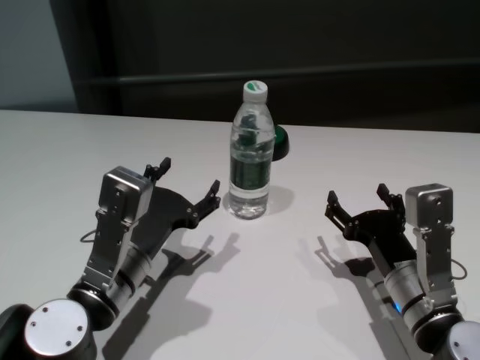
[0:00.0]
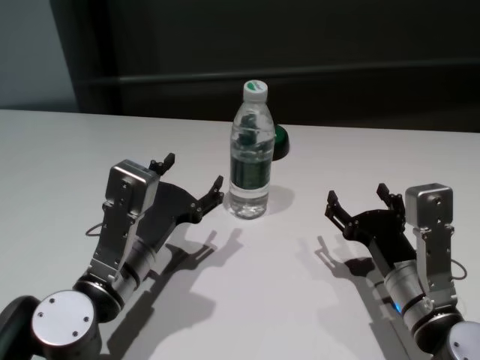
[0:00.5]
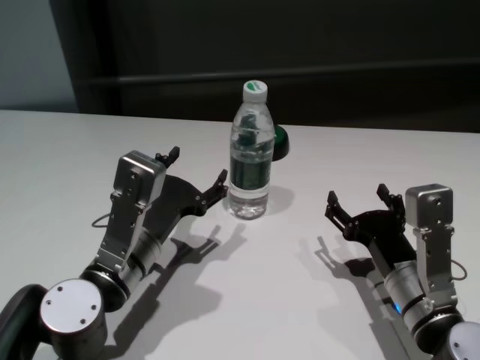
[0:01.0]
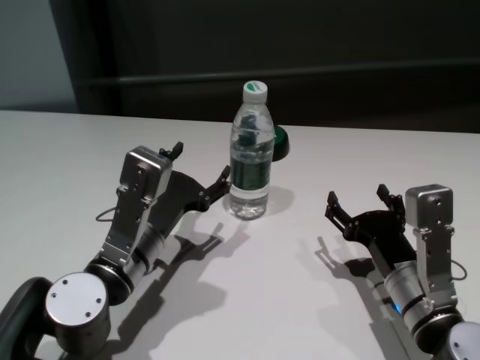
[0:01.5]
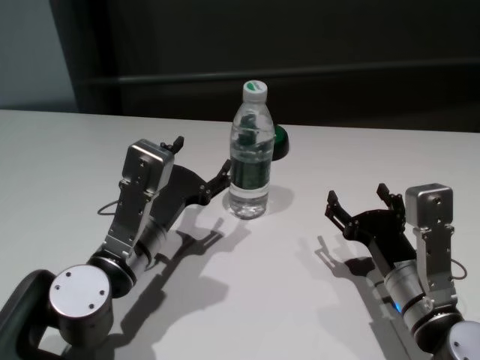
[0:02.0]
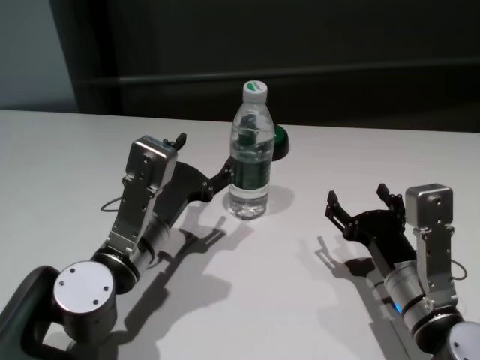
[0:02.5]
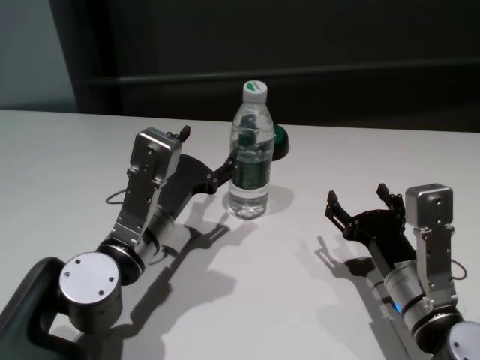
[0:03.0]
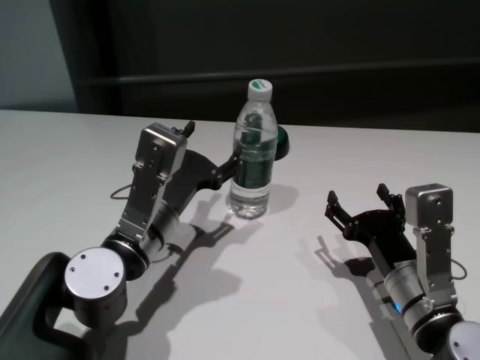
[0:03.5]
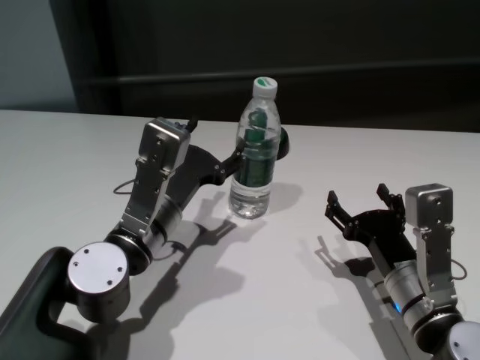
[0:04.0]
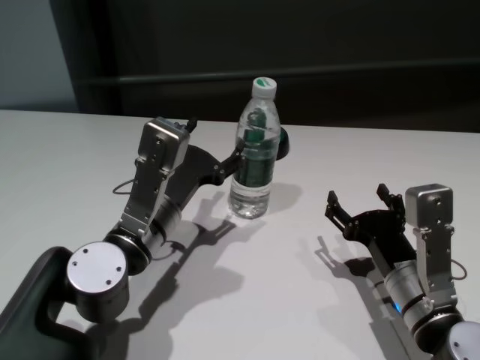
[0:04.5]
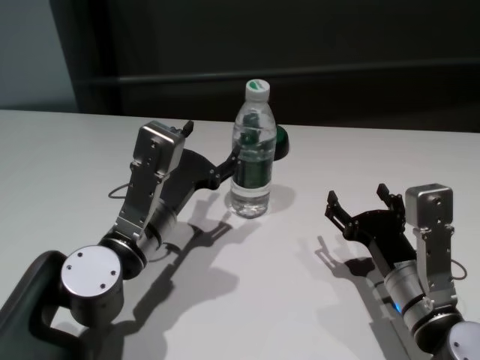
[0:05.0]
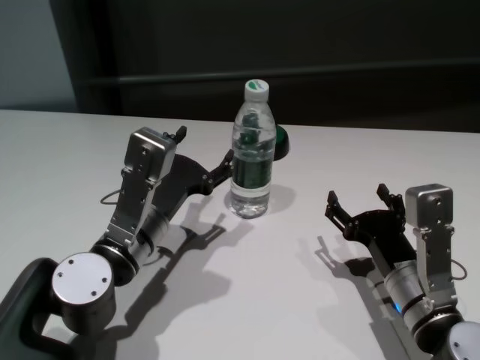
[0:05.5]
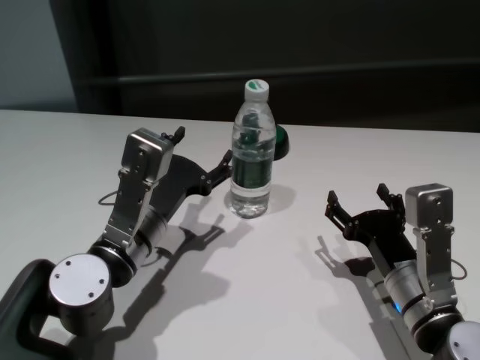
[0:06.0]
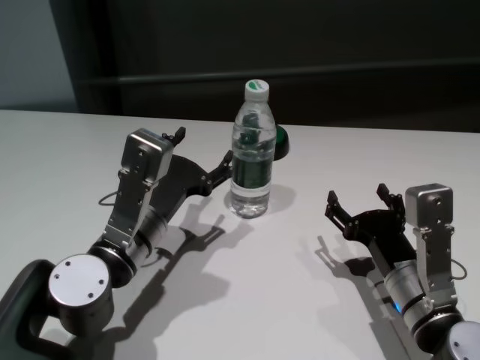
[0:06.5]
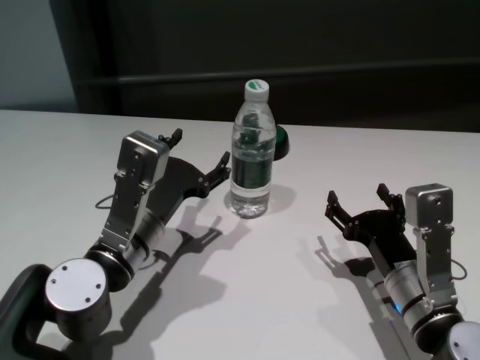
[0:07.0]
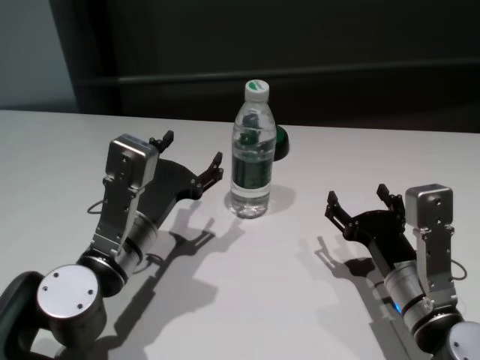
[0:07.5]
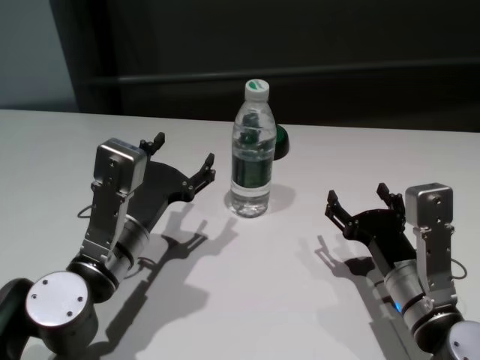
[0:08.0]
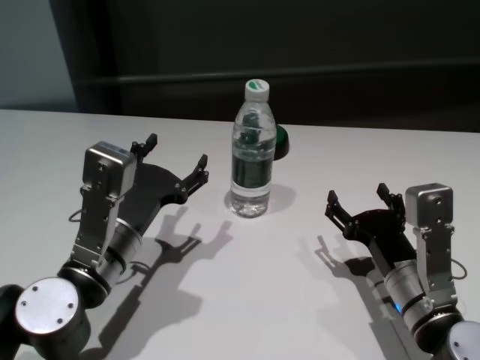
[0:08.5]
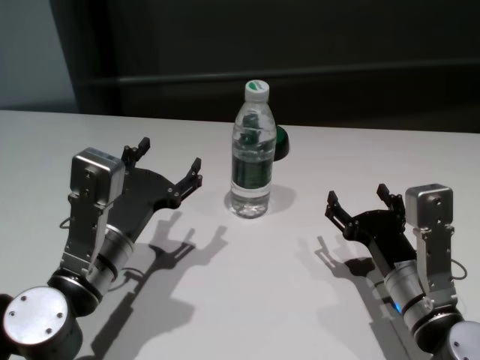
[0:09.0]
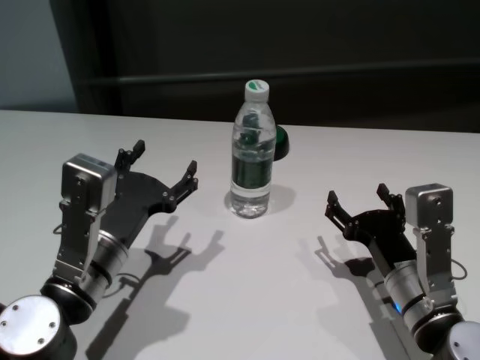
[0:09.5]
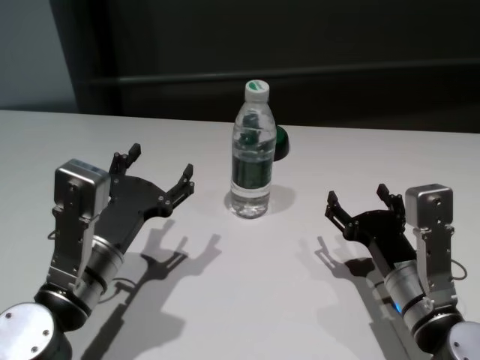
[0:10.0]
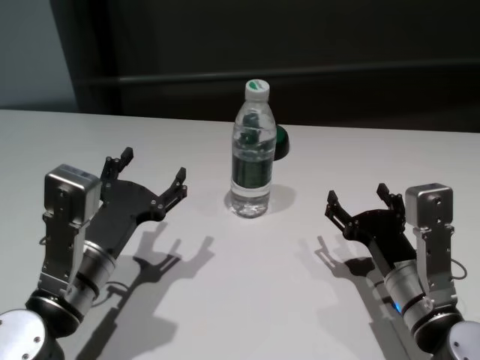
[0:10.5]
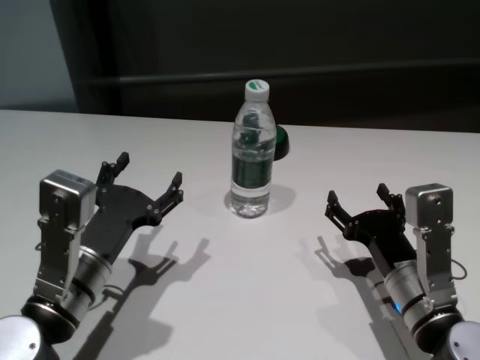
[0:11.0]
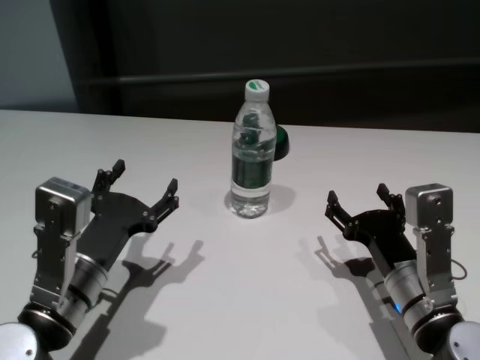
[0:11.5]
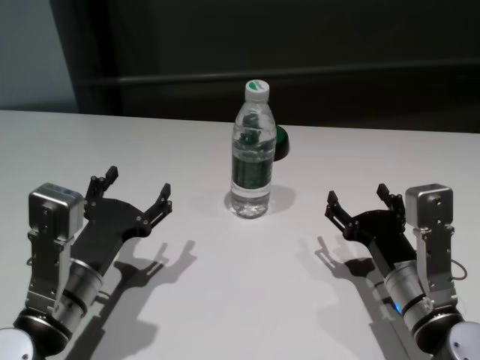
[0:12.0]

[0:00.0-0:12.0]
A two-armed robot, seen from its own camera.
Task of the whole recording: return to a safe position after touching an obstacle with your arm on the white table.
Step, 0:00.0 to 0:07.0: Touch the bottle with left gripper.

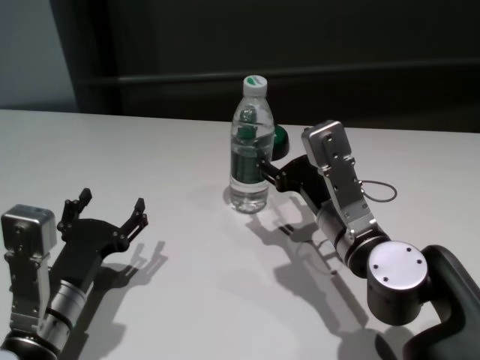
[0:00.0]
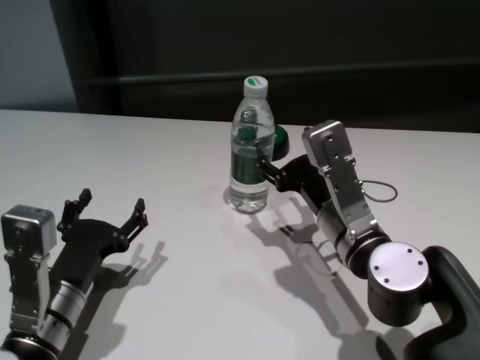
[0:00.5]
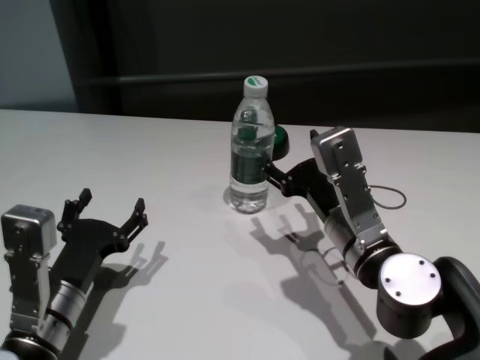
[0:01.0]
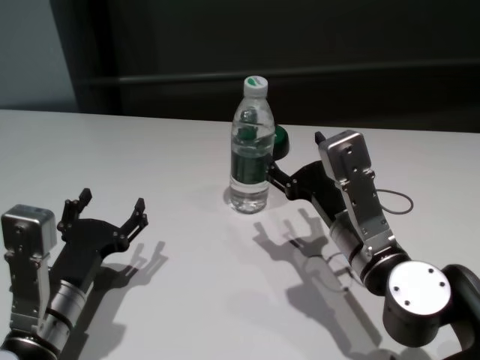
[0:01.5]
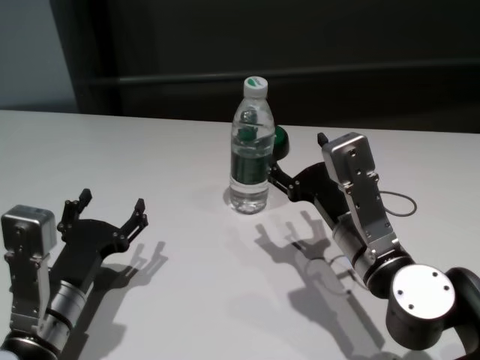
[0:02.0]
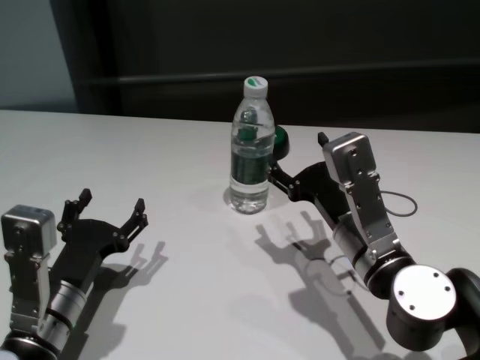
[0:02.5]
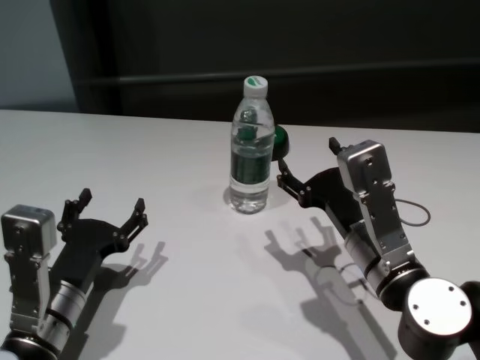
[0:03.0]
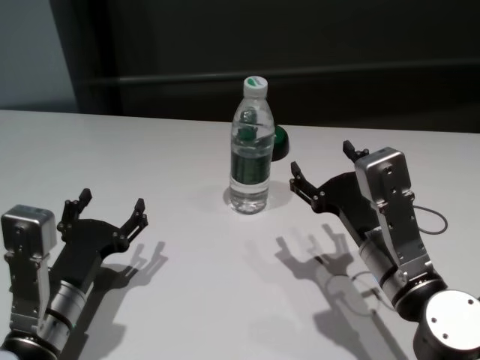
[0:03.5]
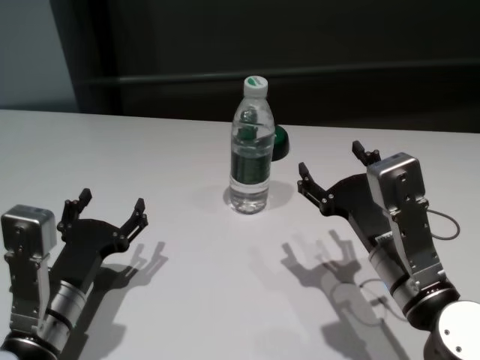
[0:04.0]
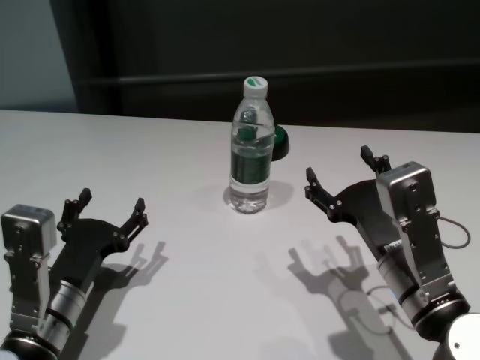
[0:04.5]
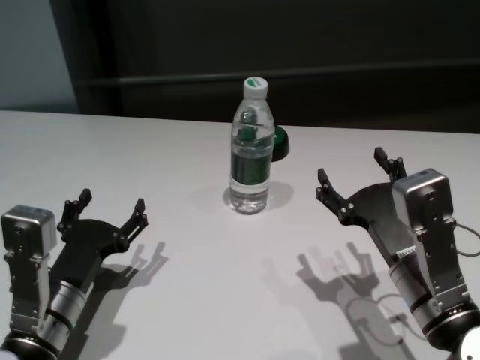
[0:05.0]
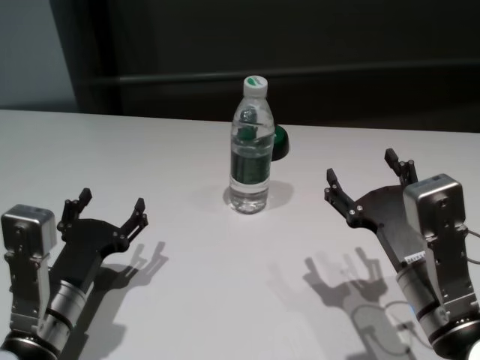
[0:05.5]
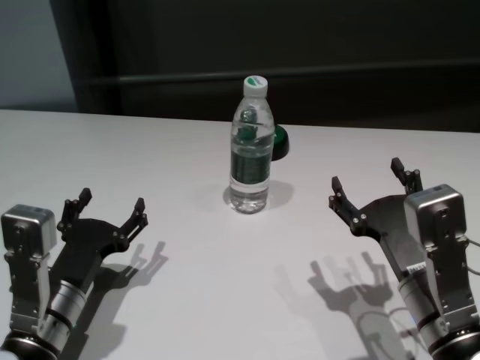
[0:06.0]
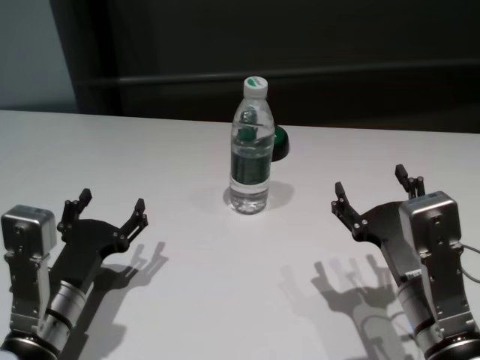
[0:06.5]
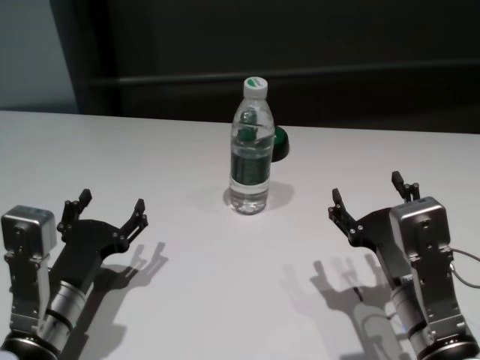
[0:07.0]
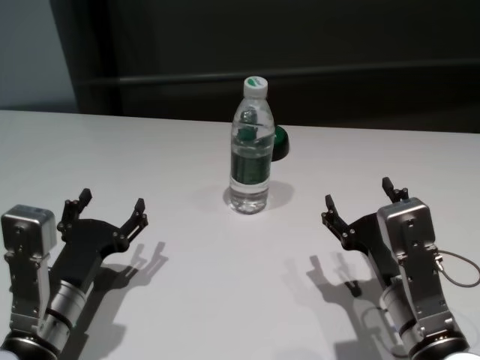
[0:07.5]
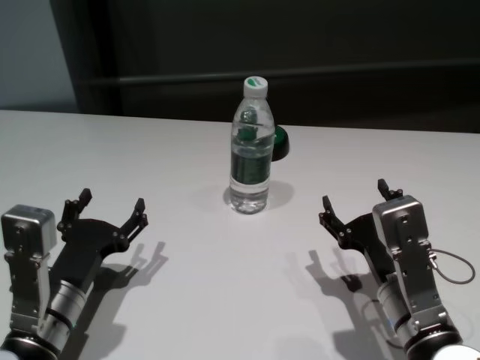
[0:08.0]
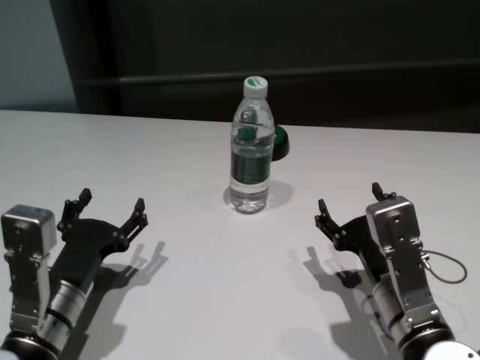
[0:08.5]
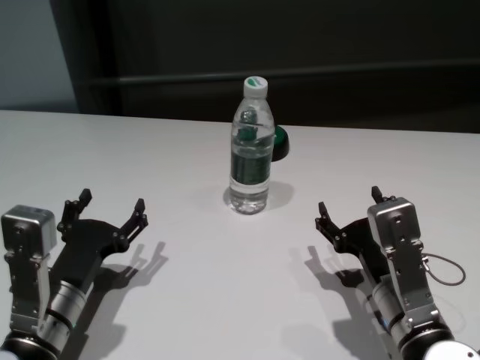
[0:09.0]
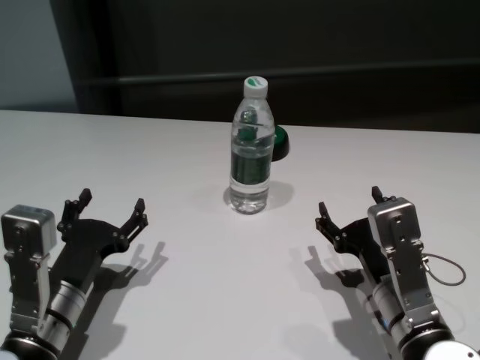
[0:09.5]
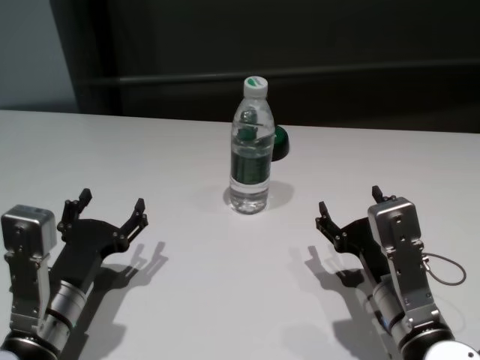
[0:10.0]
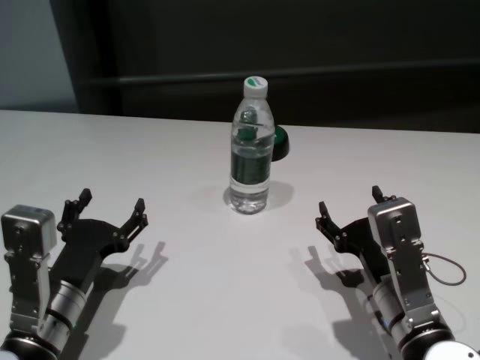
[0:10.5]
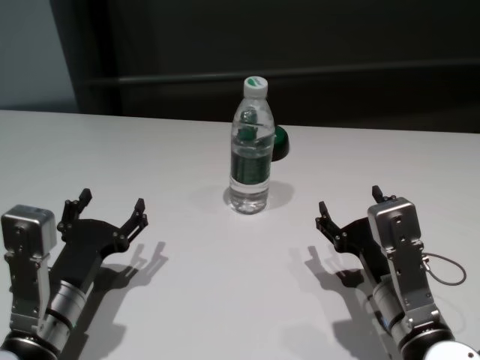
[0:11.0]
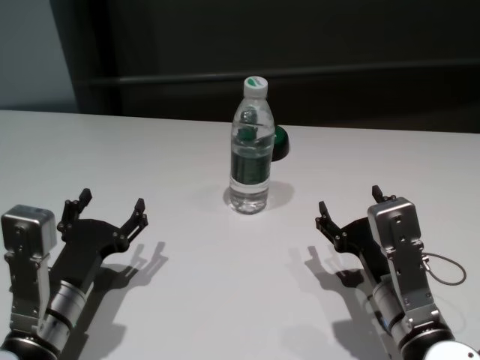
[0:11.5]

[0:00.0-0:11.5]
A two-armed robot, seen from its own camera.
Task of the whole recording: return to a safe position after touching an obstacle with your arm on the white table.
Step, 0:00.0 to 0:02.5: Touch the bottle with right gripper.
